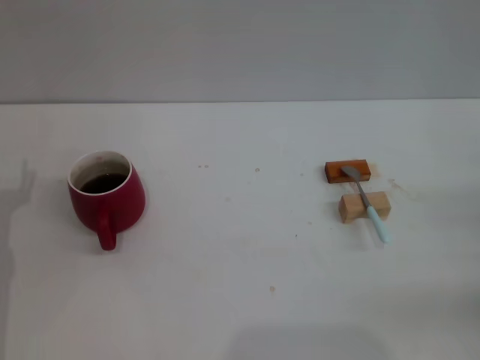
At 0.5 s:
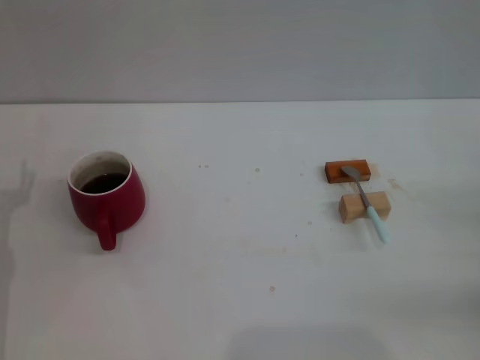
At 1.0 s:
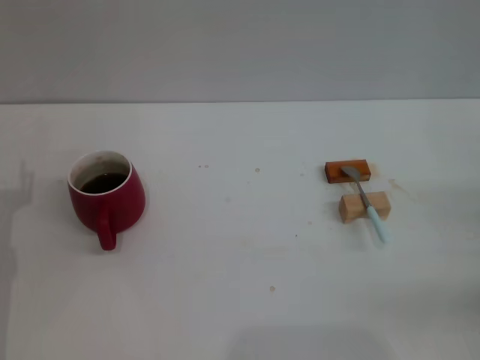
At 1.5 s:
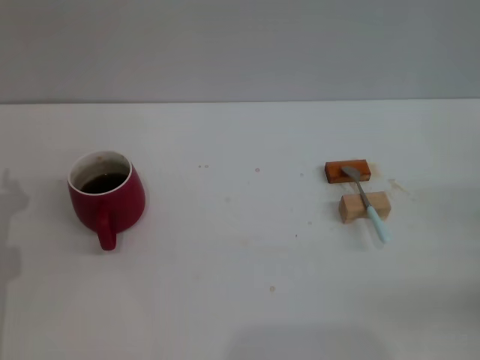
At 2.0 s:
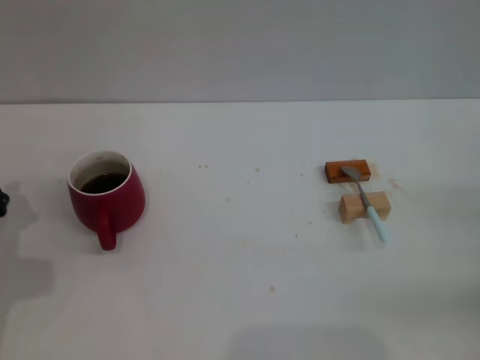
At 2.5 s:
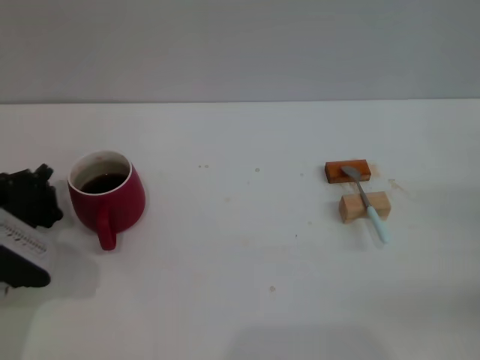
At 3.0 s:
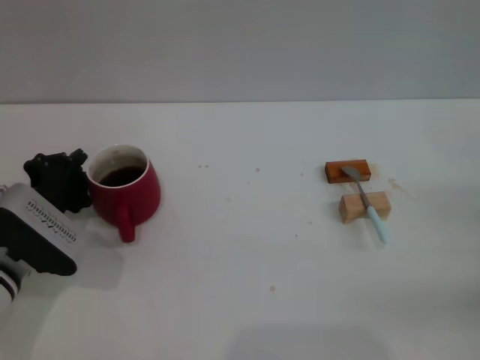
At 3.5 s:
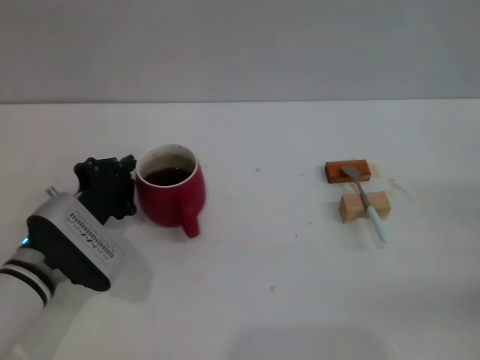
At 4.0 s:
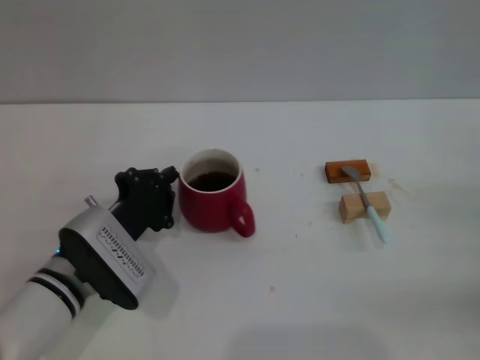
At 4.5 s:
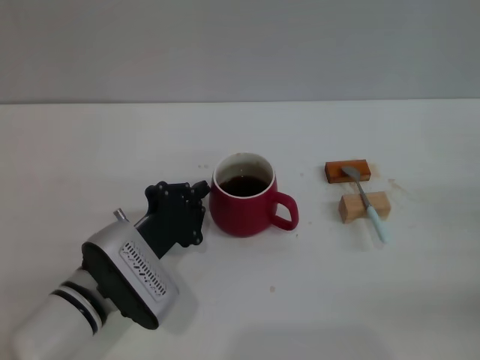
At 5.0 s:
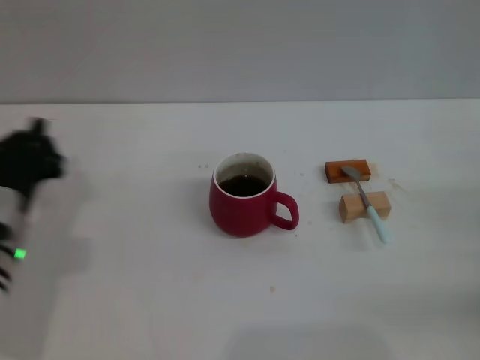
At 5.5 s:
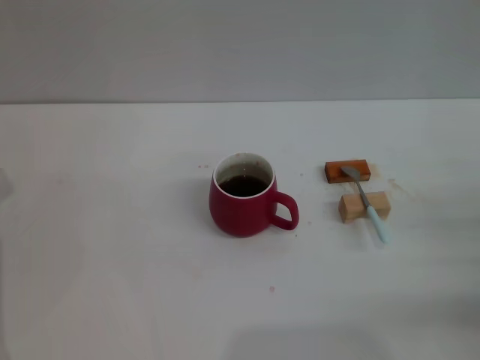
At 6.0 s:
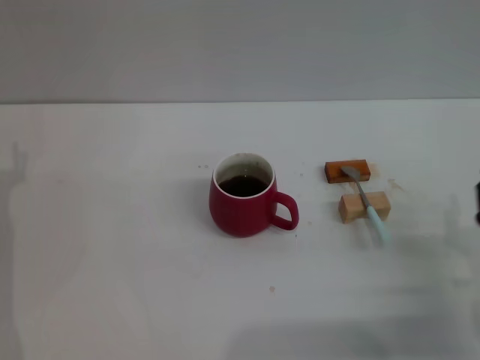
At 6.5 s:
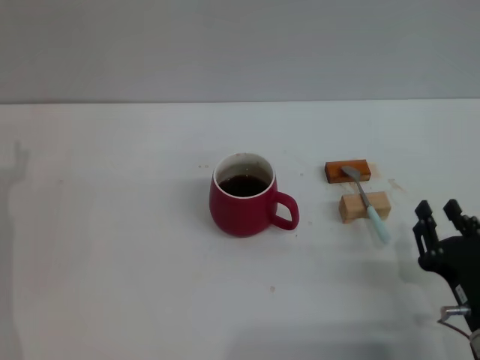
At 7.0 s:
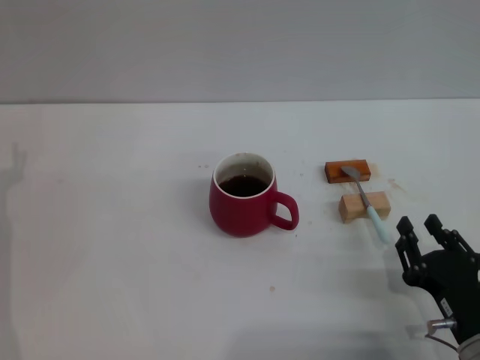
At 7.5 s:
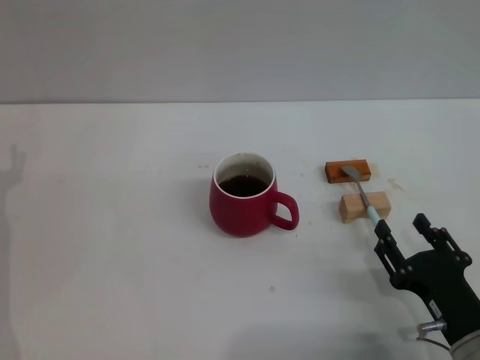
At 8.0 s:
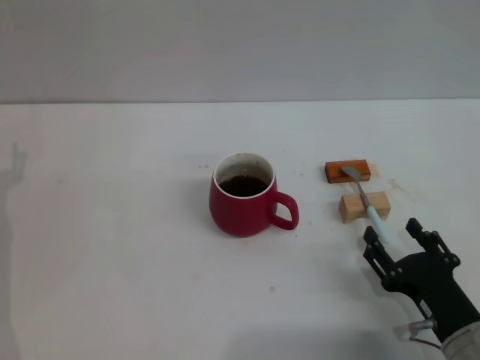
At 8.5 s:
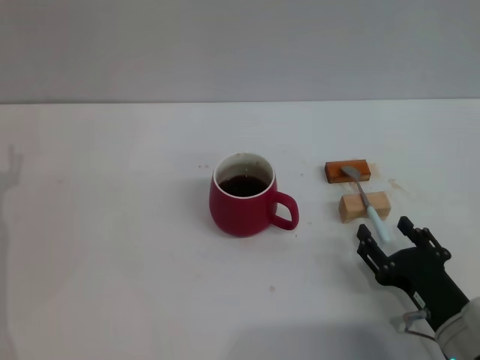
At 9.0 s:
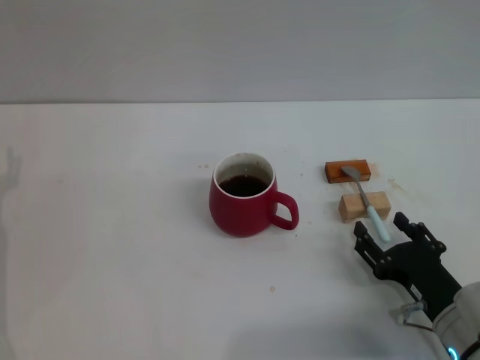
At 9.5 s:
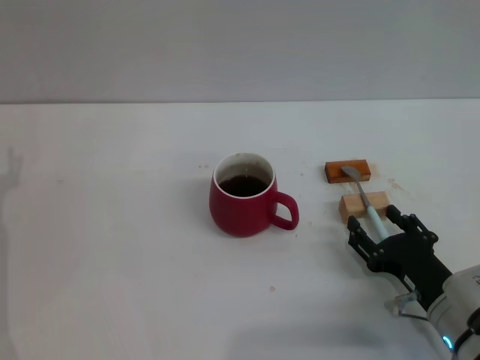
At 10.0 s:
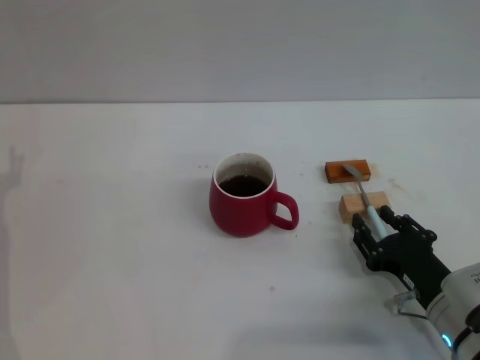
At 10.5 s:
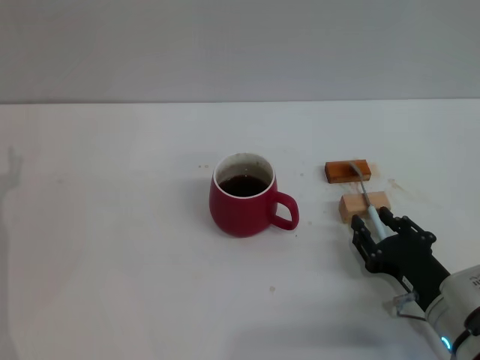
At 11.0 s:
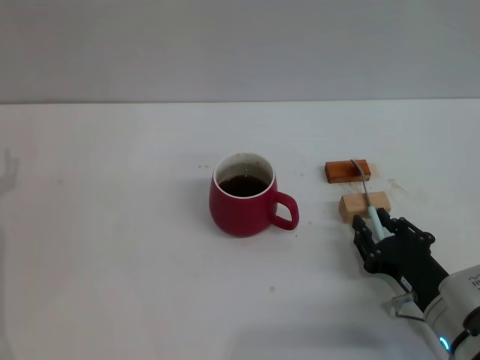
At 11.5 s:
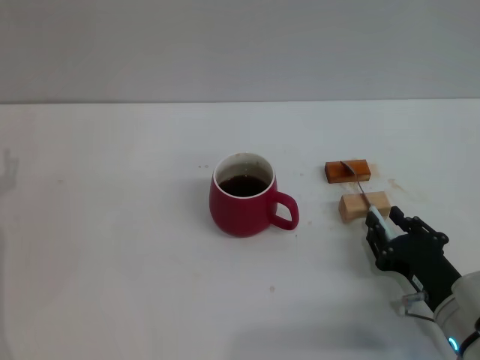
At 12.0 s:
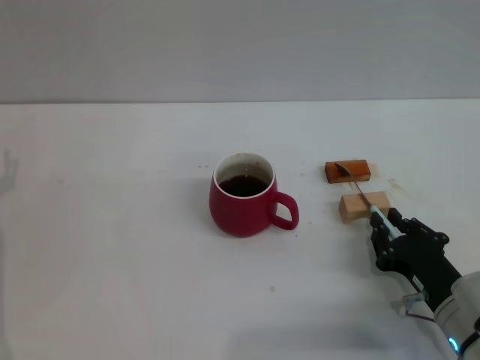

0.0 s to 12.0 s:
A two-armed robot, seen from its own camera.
Task of the whole recording: Move the red cup to the center, lift the blue spoon, stir it three times in the cup, and put the spoon into the cup.
Step, 0.0 to 5.0 s: Move the cup with coffee to the center of view with the left gripper.
2.0 to 4.0 s: The left gripper travels to the right by approximately 10 cm.
4.0 to 6.0 s: Both grippers move to the left, approximately 15 cm. The left gripper opens up.
6.0 to 8.0 s: The right gripper changes place by roughly 5 cm, and opens up.
8.0 to 10.0 s: The grippers stay close to where they were, moving slightly.
10.0 to 12.0 s: The right gripper closes its fingers.

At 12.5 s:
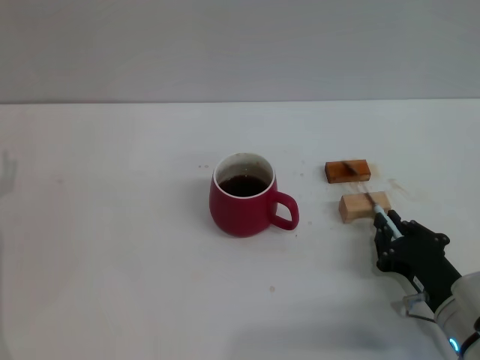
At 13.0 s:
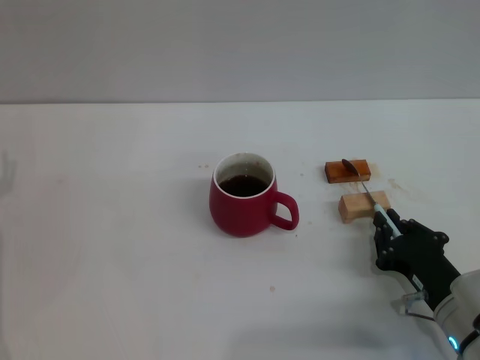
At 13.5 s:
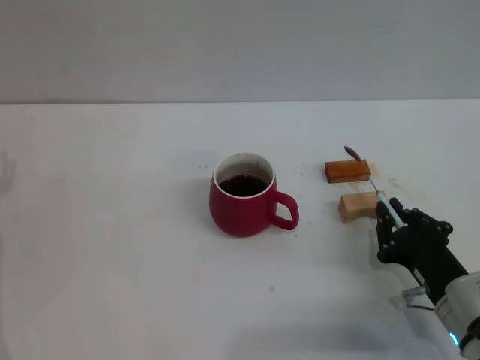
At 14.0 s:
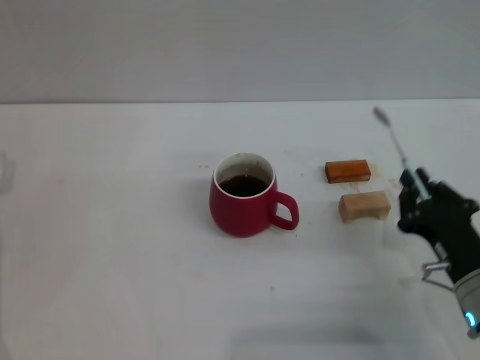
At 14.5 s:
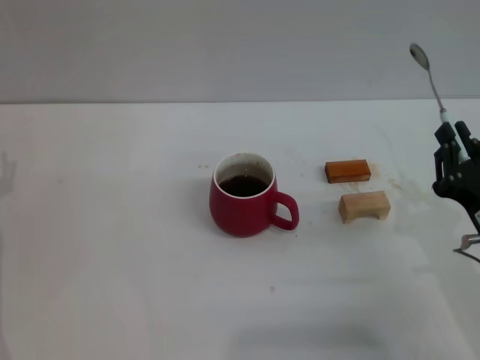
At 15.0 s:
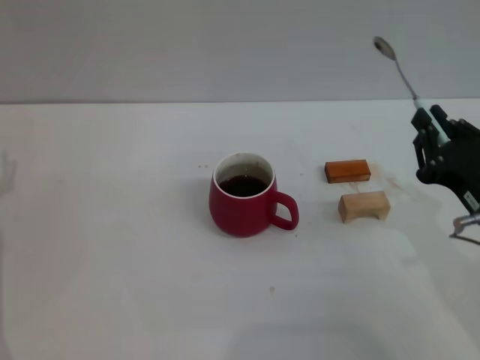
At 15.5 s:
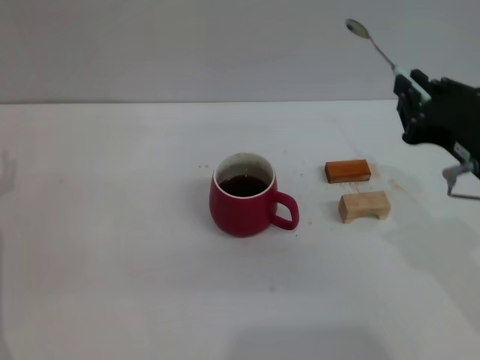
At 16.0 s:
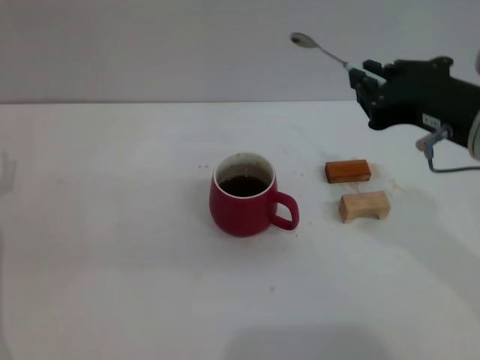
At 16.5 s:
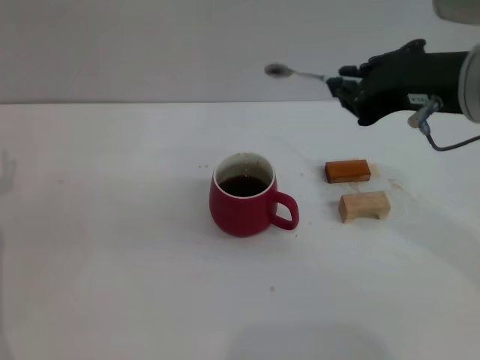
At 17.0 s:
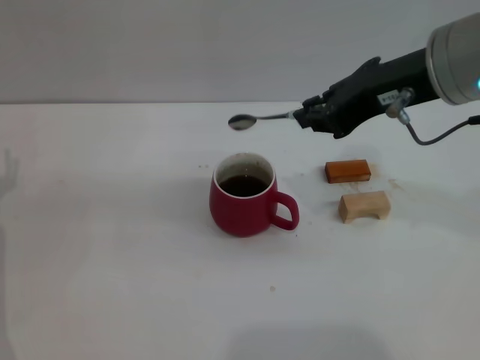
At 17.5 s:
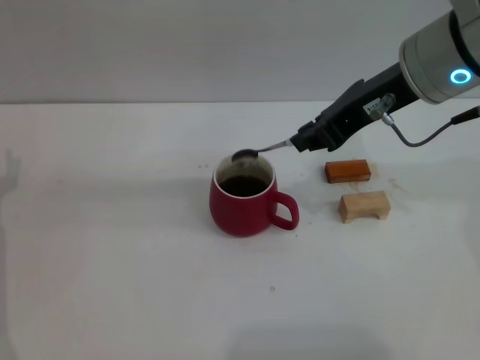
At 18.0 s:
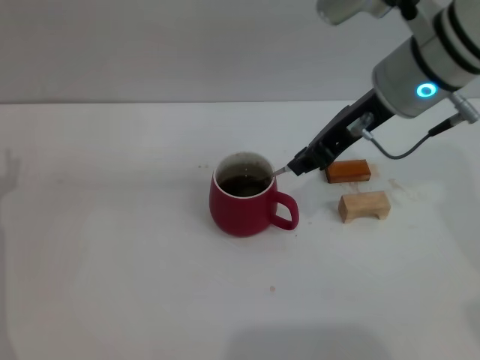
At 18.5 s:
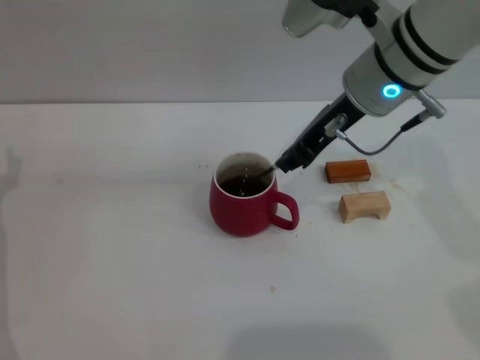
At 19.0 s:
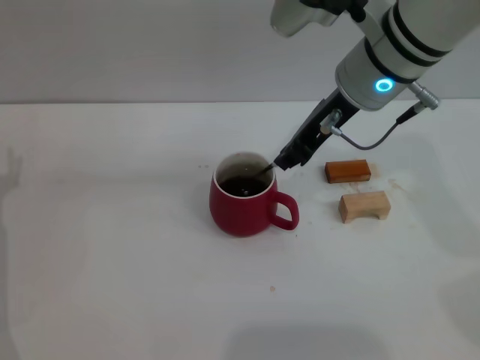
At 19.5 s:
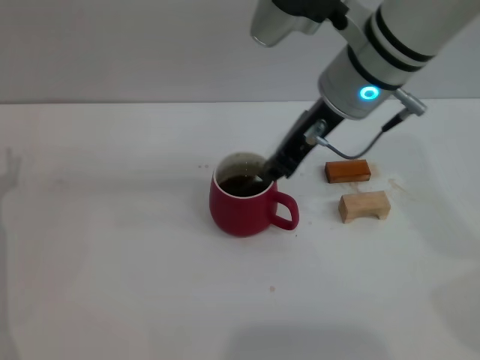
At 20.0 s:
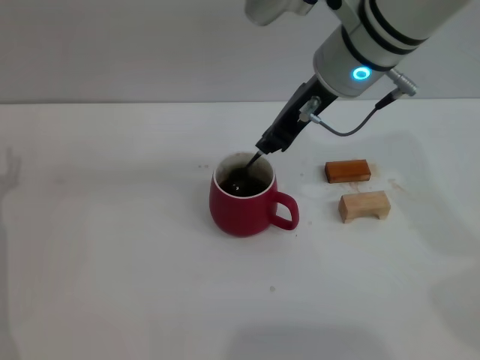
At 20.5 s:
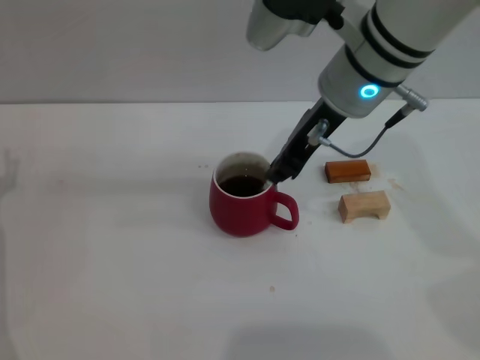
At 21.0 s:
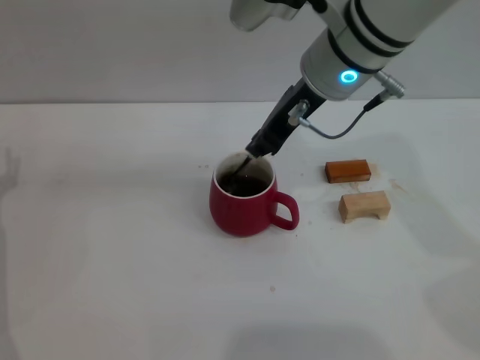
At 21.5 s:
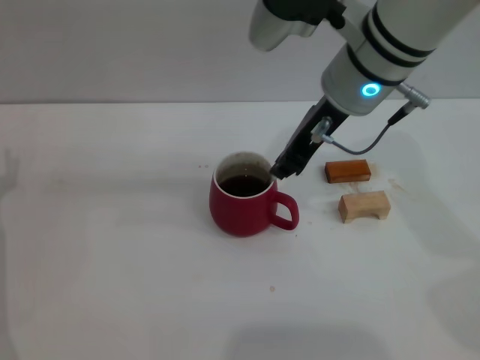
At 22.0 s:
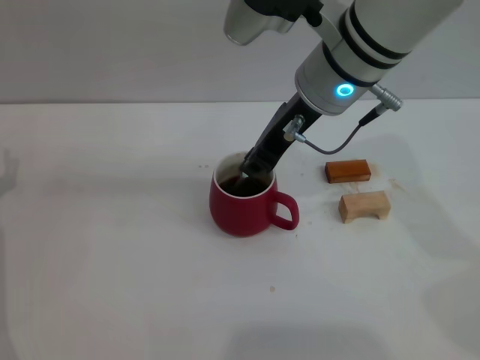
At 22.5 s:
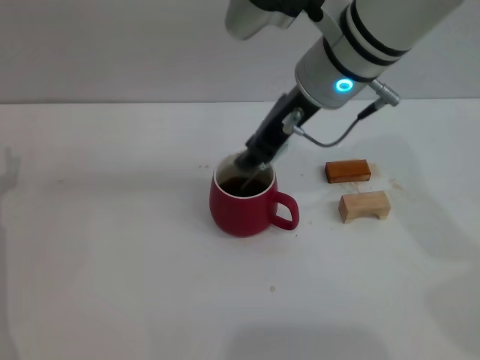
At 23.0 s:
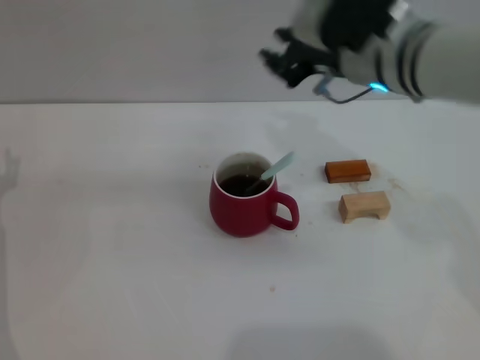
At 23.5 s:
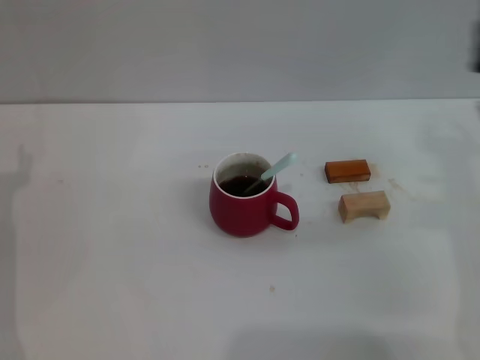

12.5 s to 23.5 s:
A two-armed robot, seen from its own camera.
Task of the whole recording: Move the red cup to the center, lift the blue spoon, stir it three times in the cup, and put the spoon into the cup.
Step, 14.5 to 23.0 s: Stir the coffee in the cup with the right gripper.
12.5 to 14.5 s: The right gripper goes about 10 cm upward.
14.5 to 16.0 s: The right gripper travels upward by roughly 15 cm.
16.0 to 18.0 s: The right gripper heads forward, covering about 10 cm.
18.0 to 20.0 s: The right gripper ends up about 5 cm from where it was.
20.0 to 21.5 s: There are only small adjustments of the grippers.
21.5 to 23.5 s: The right gripper is displaced to the right, downward and backward by about 20 cm.
